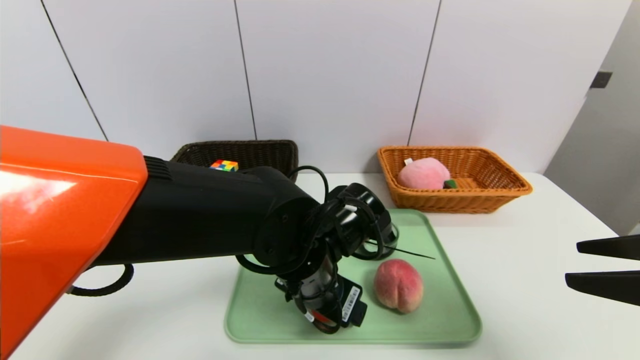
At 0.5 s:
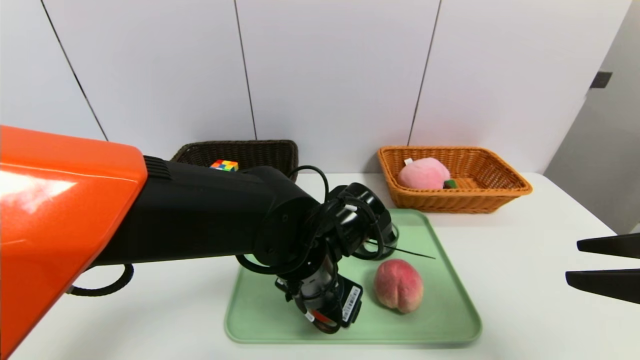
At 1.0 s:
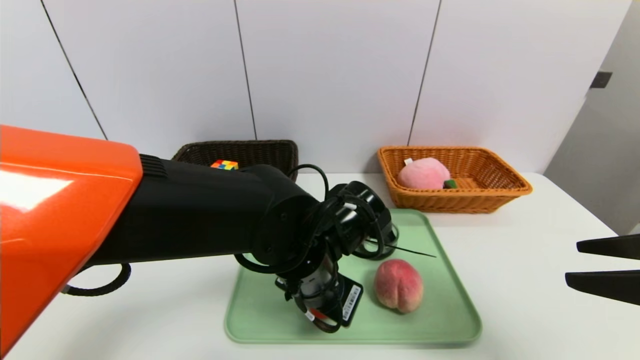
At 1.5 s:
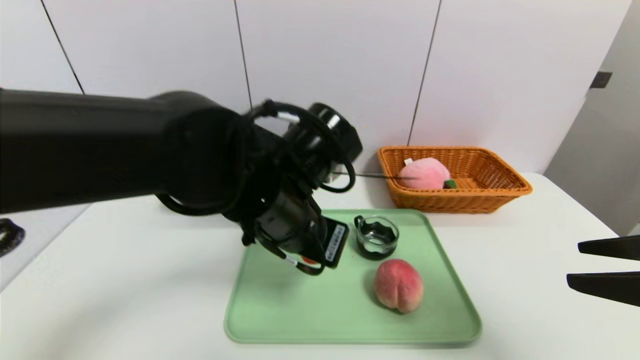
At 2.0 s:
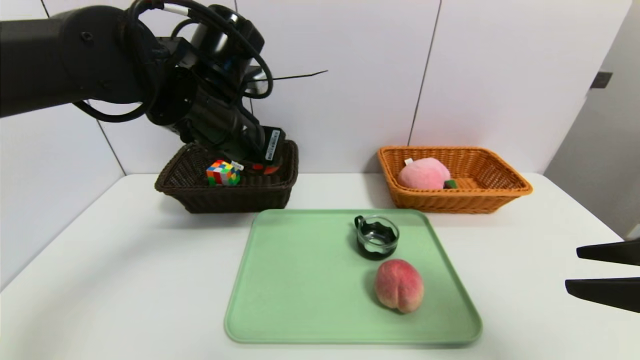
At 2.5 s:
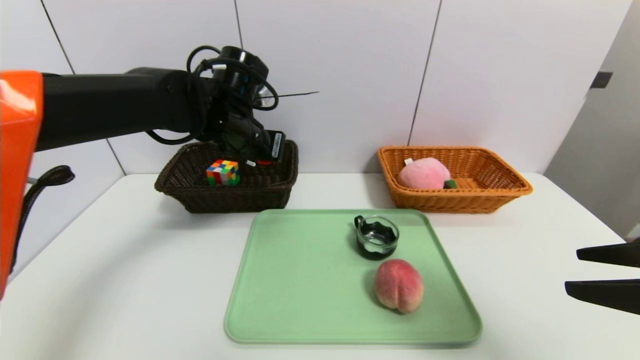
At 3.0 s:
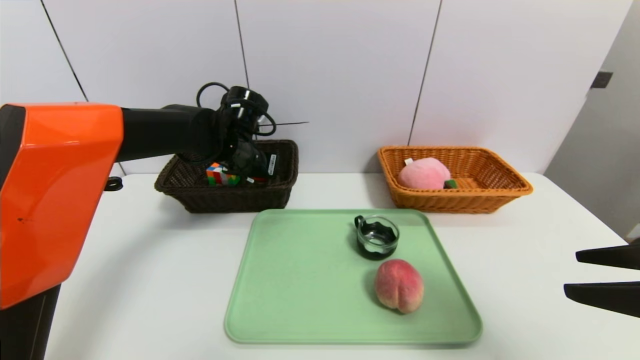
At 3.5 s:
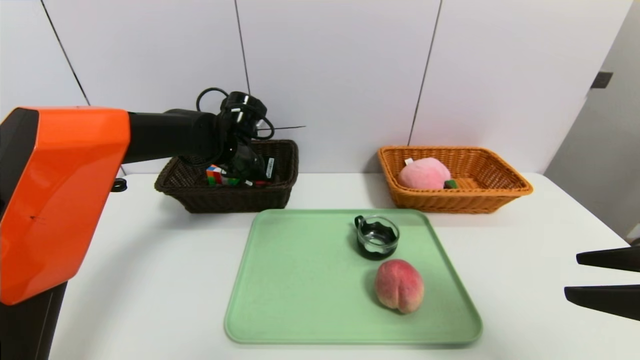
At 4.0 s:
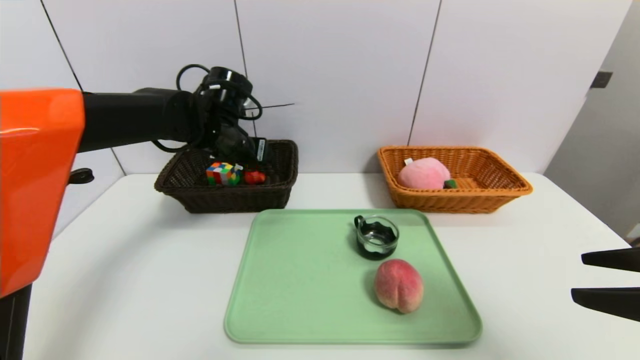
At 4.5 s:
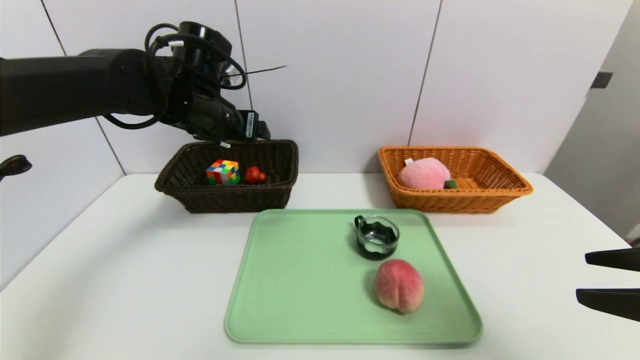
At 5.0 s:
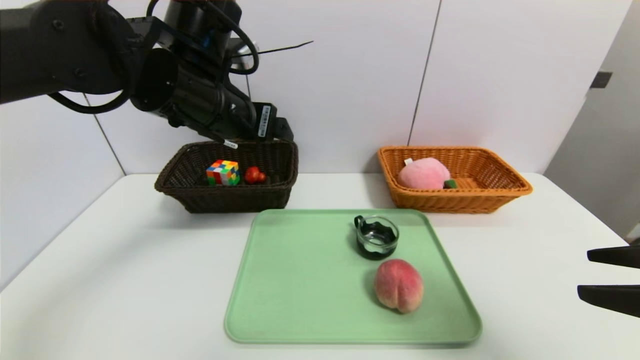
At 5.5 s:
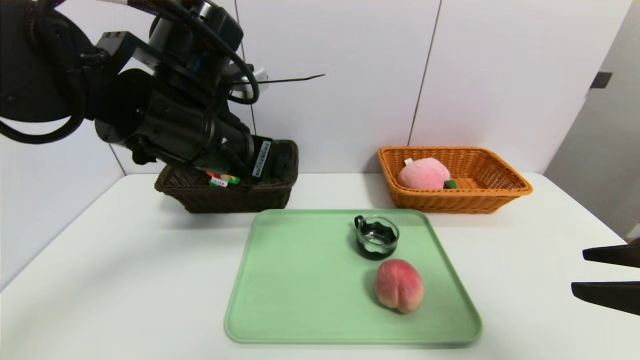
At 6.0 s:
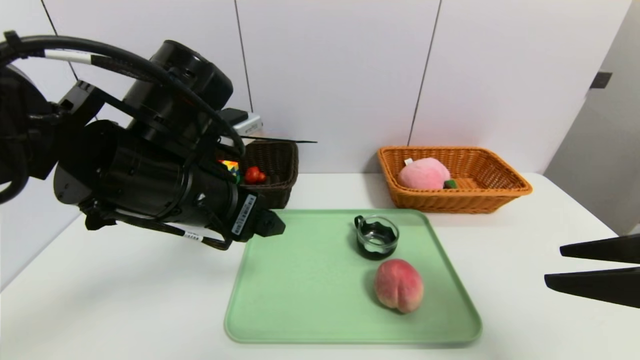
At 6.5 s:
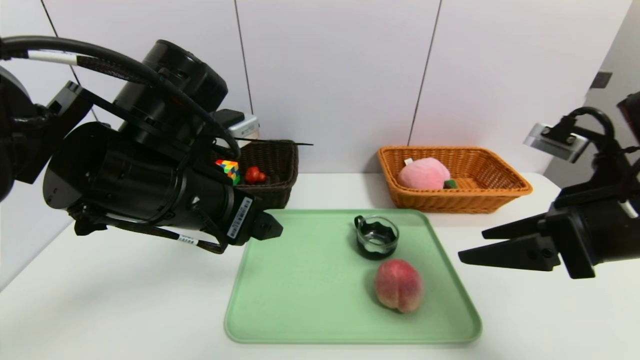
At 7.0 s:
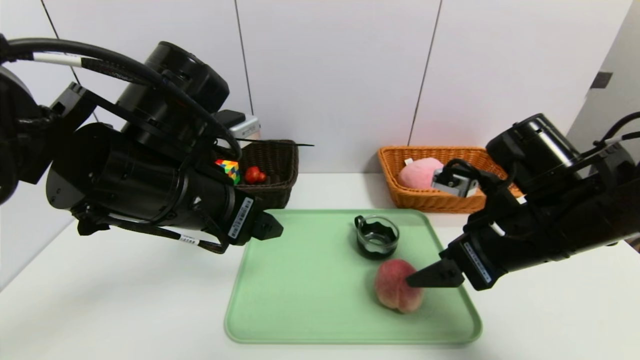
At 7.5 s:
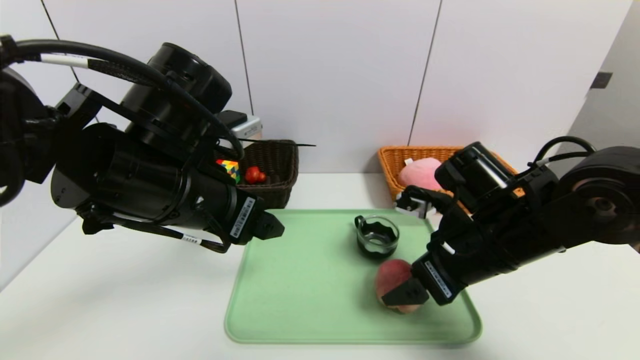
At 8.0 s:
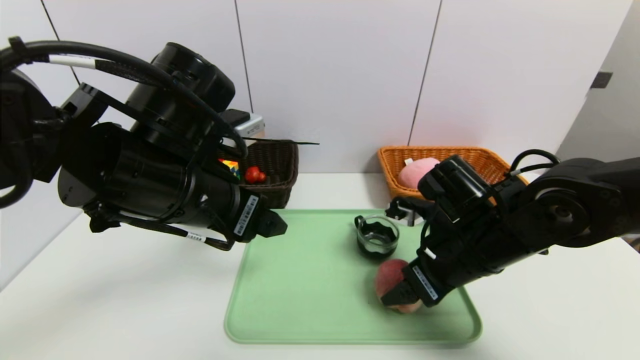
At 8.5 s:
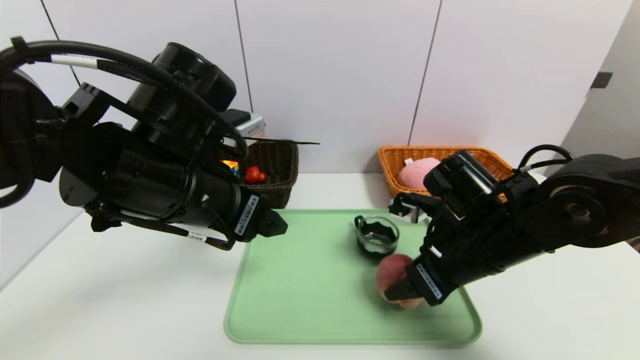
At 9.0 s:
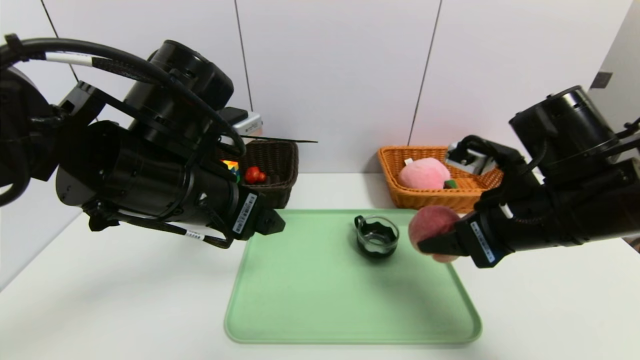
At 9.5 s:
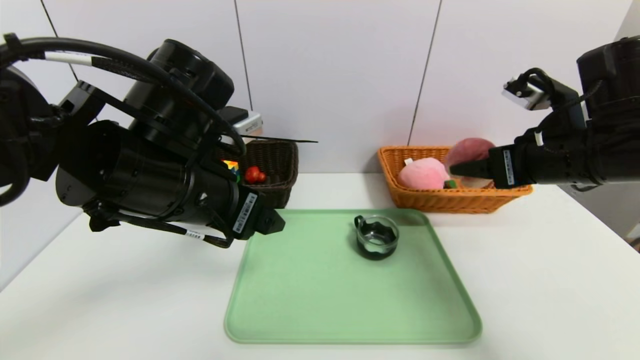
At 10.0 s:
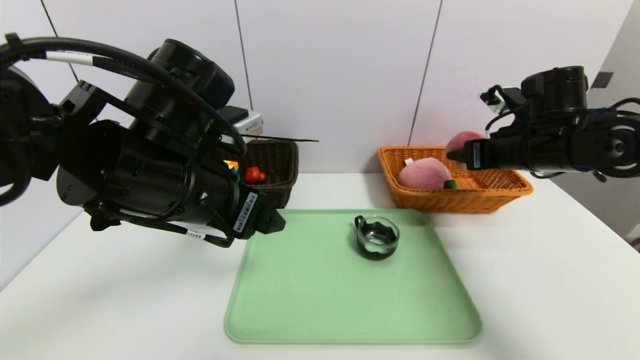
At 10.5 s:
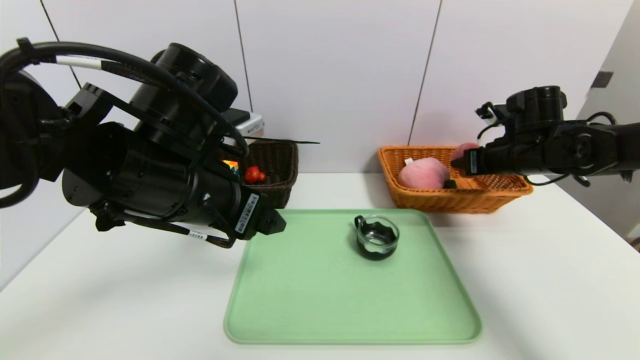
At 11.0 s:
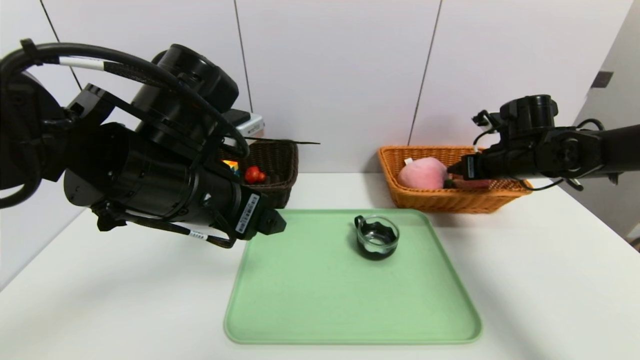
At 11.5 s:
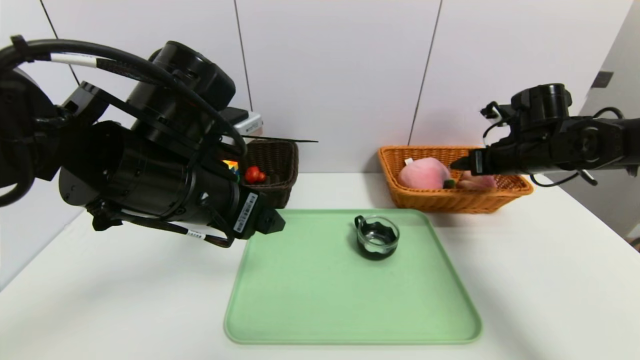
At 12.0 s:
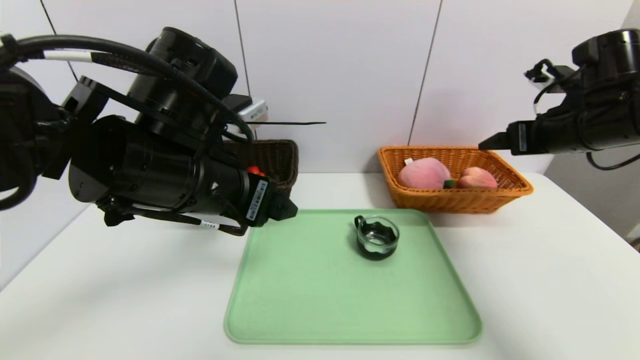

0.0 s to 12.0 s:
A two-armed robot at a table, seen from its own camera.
Task of the whole recording: place the food in the right basket with the right gripper, and place the non food items in the left basket with the left gripper.
Step, 0.0 to 3.5 s: Grasp the red duck and put it in the left basket.
Step, 4.0 to 11.5 s: Grasp the peach and put it in the right basket.
0.0 to 2.0 s: The left gripper travels upward, to the left and forward by roughly 20 cm, and closes.
2.0 to 4.0 s: The left gripper travels forward and downward by some 10 cm, and opens.
4.0 to 6.0 s: The left gripper heads backward, covering about 20 cm.
6.0 to 8.0 s: The right gripper goes approximately 20 cm forward, to the left and downward.
8.0 to 10.0 s: The right gripper moves to the right, forward and upward, some 15 cm.
10.0 to 12.0 s: The right gripper moves about 5 cm, and opens up.

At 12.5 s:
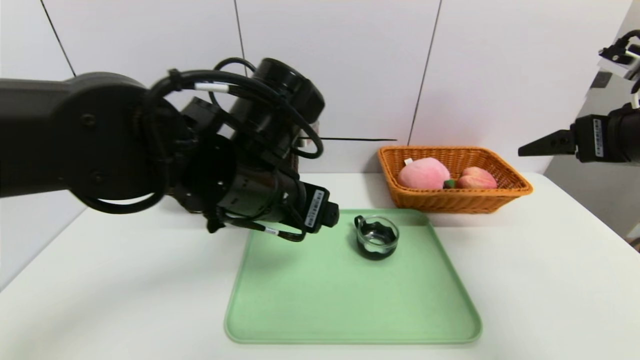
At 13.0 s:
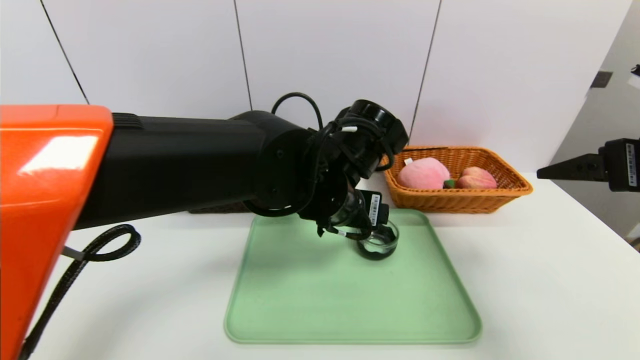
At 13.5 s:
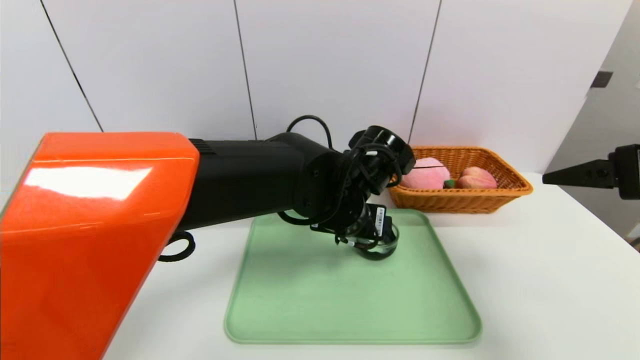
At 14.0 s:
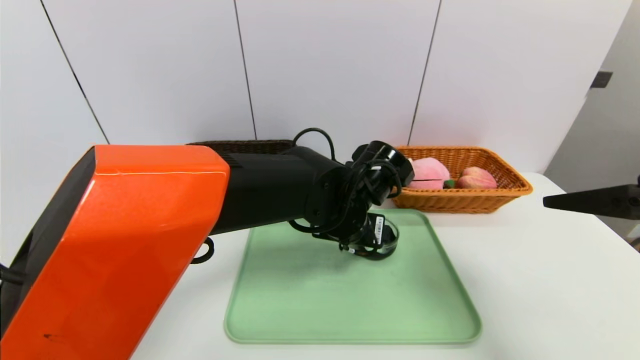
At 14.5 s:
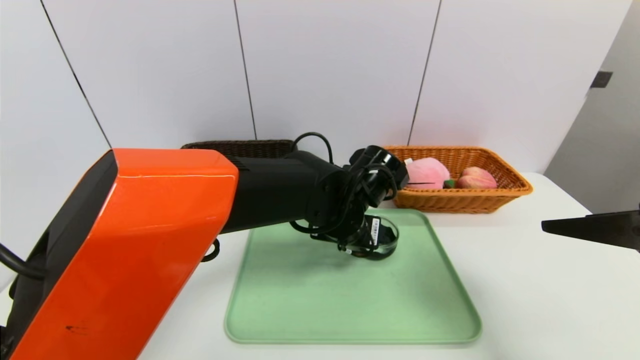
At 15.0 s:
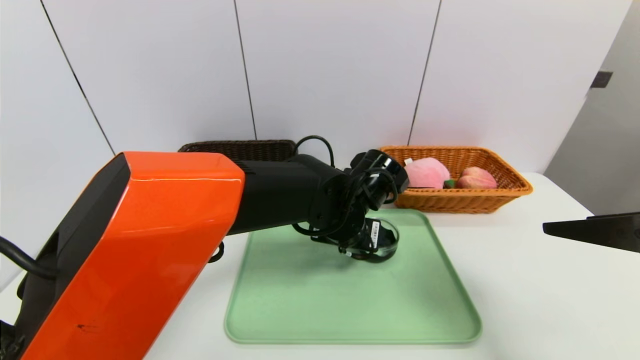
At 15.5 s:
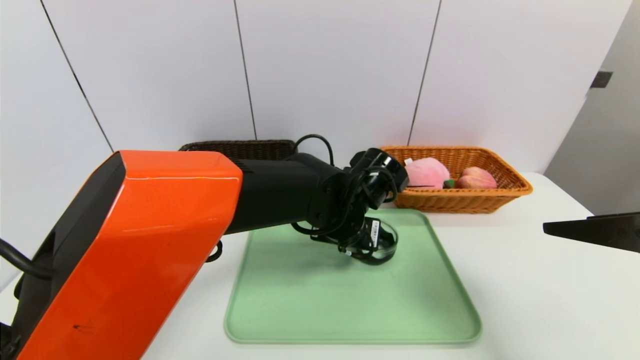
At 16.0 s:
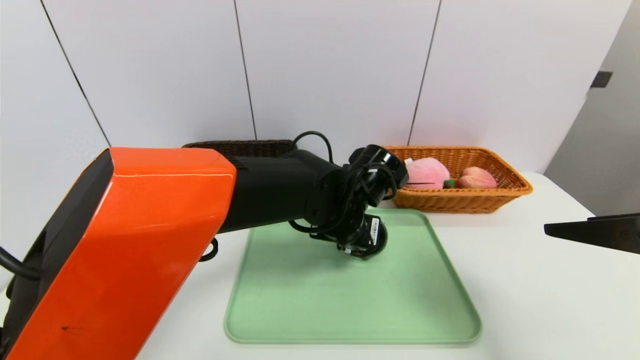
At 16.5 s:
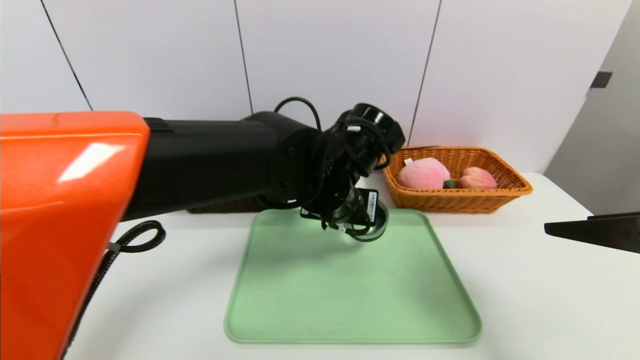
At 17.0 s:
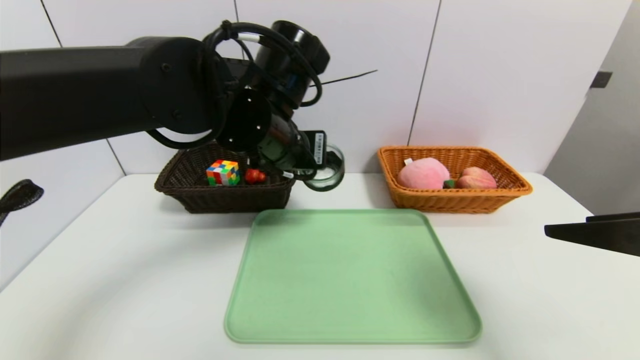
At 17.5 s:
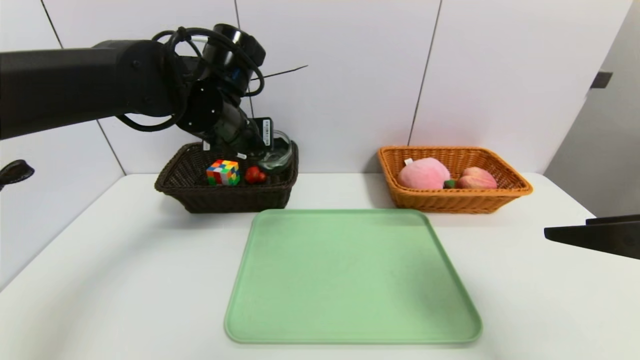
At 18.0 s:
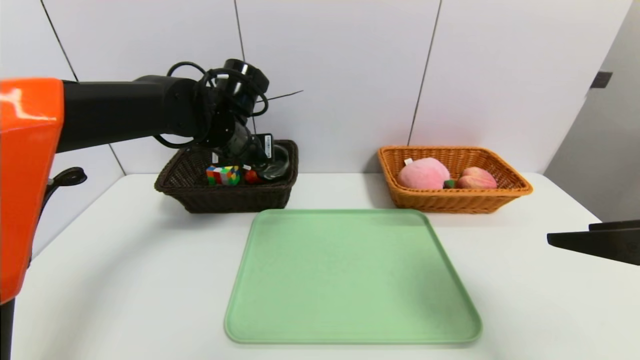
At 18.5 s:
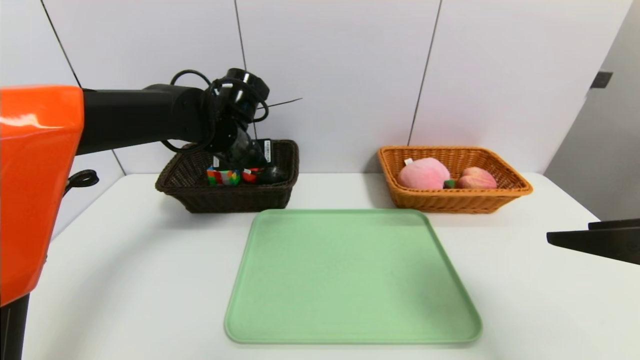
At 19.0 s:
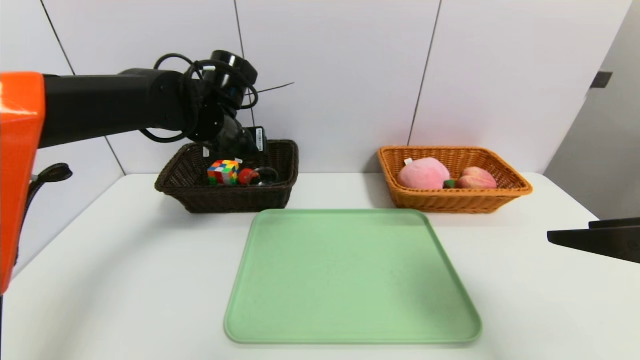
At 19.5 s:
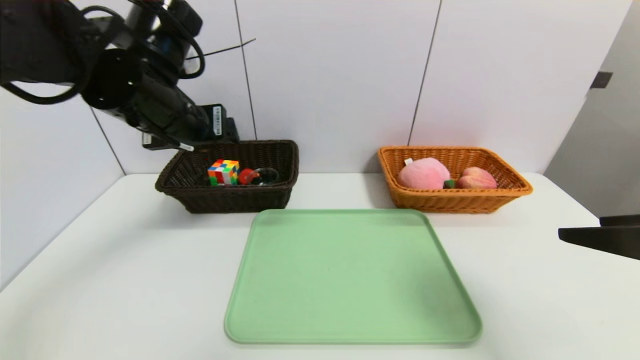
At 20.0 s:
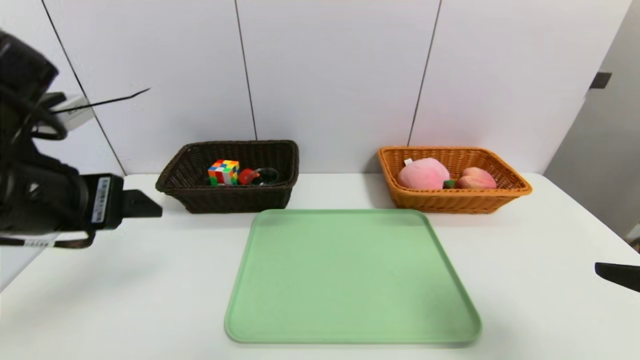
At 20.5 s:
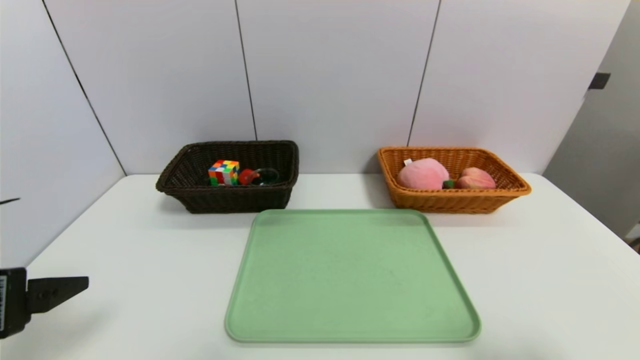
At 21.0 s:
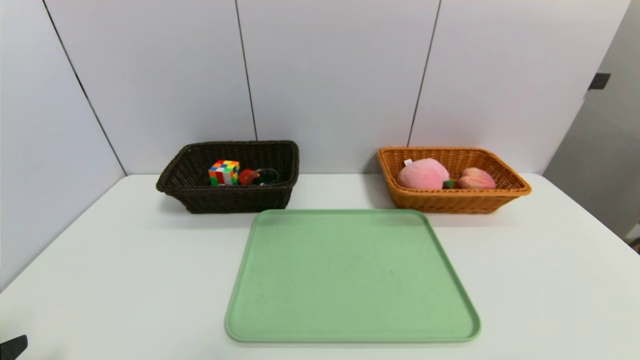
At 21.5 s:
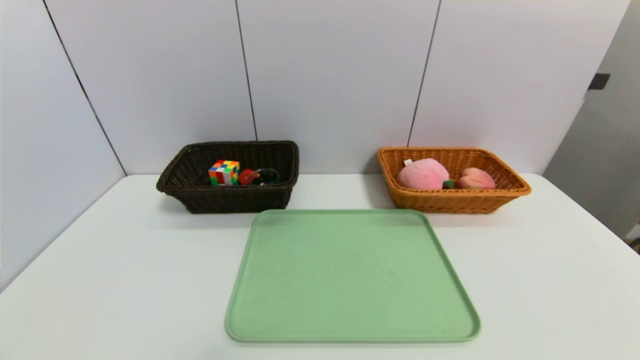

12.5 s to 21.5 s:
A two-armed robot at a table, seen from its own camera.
Task of the whole recording: place the food in the right basket with the right gripper, and place the non food items in the left basket with the left gripper.
Step, 12.5 to 19.0 s: Grasp the black glass cup and put it in the left basket.
12.5 to 14.5 s: The right gripper is displaced backward by roughly 10 cm, while the left gripper shifts roughly 15 cm to the right, downward and forward.
14.5 to 17.0 s: The left gripper travels upward and to the left by about 15 cm, and closes.
17.0 to 19.5 s: The left gripper heads to the left, covering approximately 10 cm, and opens its fingers.
19.5 to 21.5 s: The right gripper is displaced backward and downward by about 20 cm. Meanwhile the left gripper heads backward, downward and to the left, covering some 35 cm.
